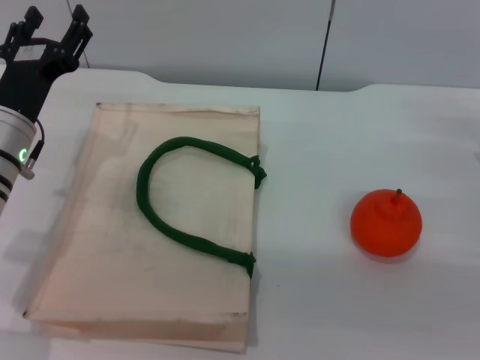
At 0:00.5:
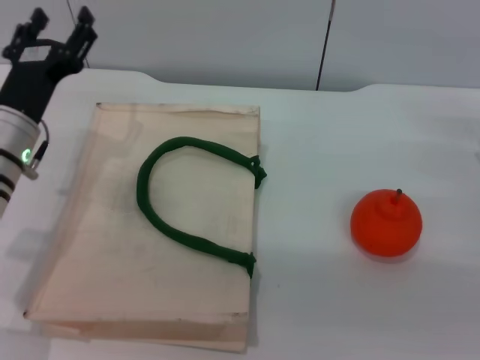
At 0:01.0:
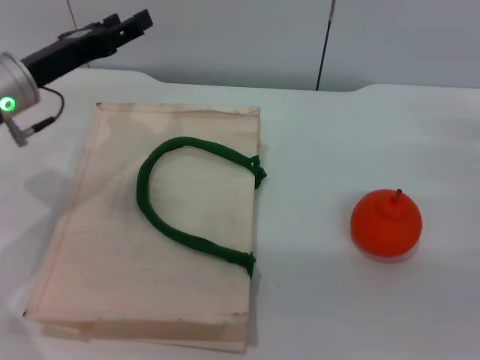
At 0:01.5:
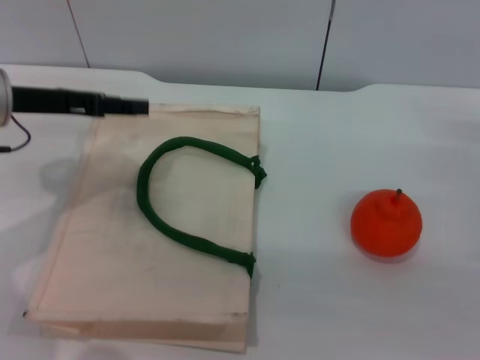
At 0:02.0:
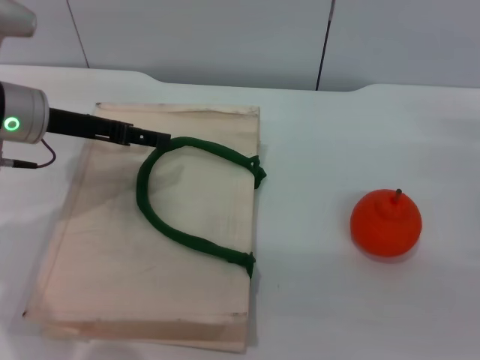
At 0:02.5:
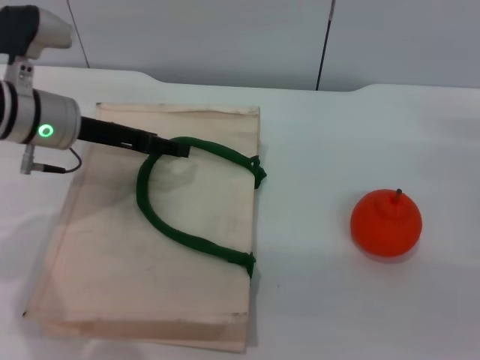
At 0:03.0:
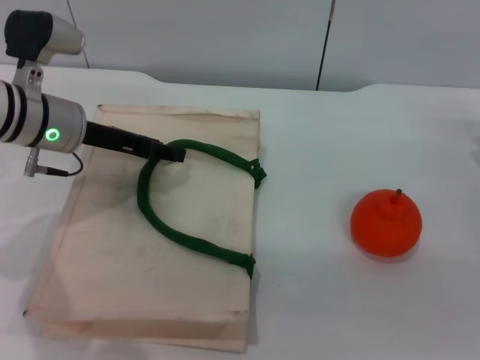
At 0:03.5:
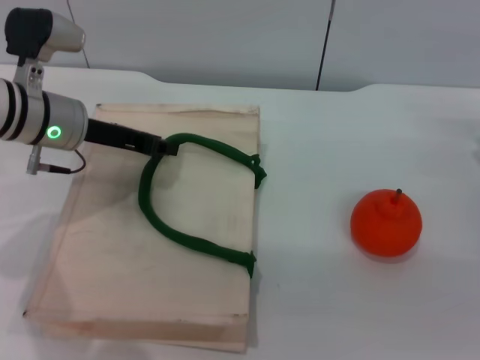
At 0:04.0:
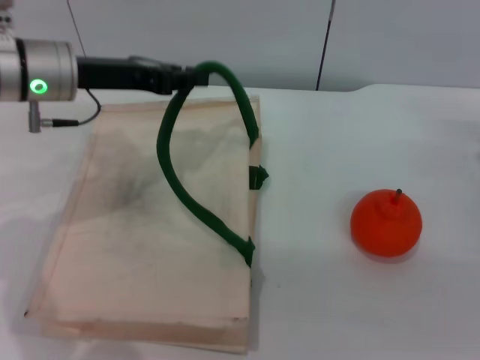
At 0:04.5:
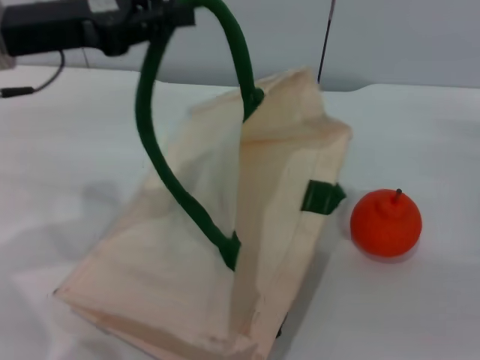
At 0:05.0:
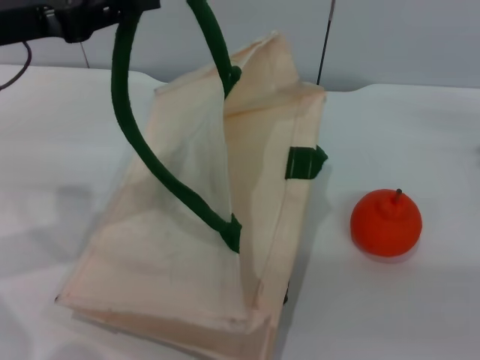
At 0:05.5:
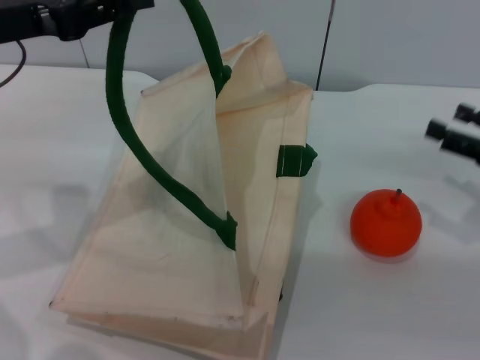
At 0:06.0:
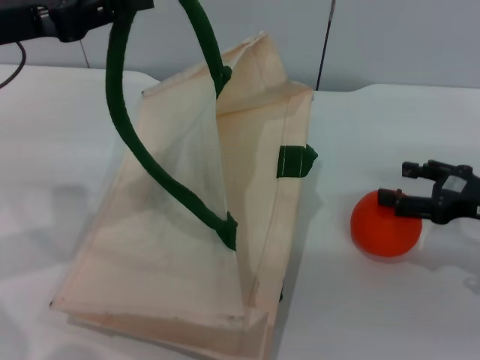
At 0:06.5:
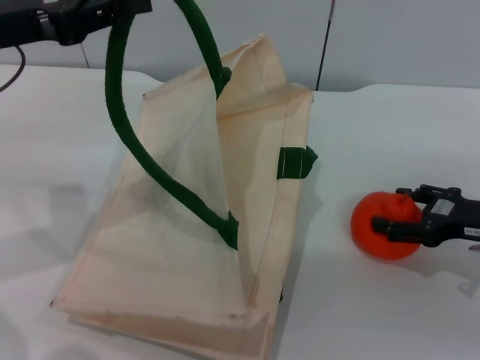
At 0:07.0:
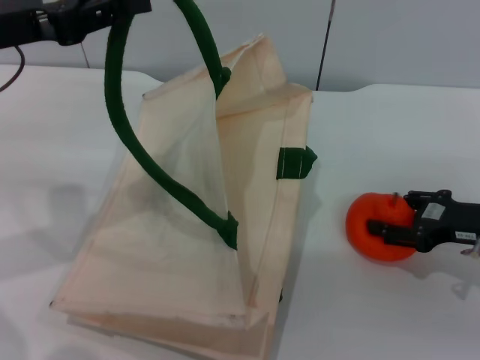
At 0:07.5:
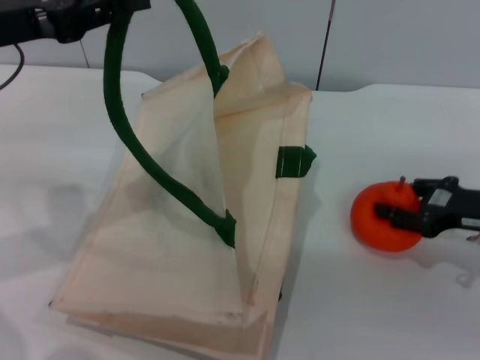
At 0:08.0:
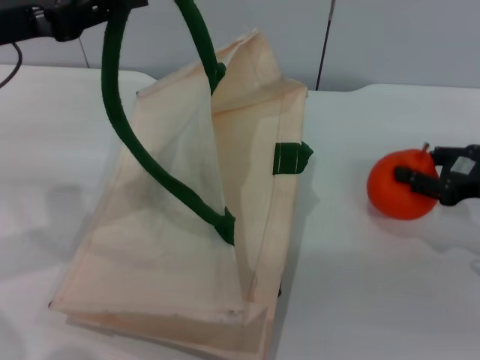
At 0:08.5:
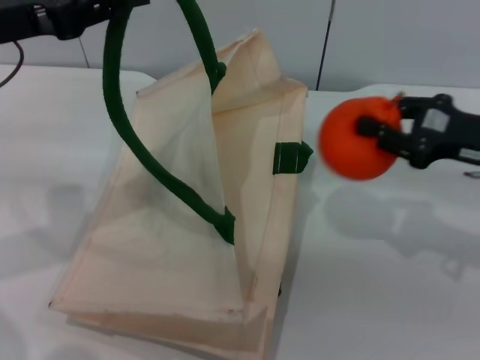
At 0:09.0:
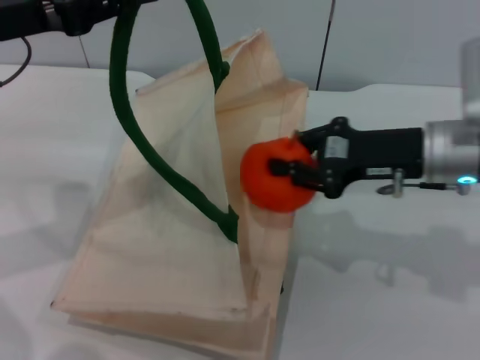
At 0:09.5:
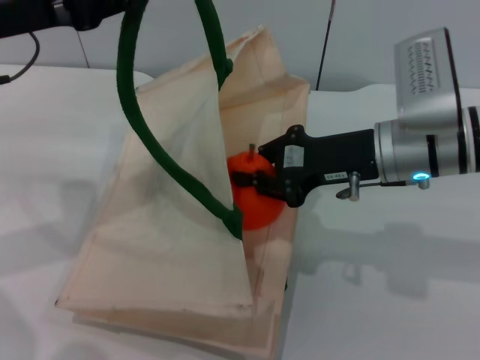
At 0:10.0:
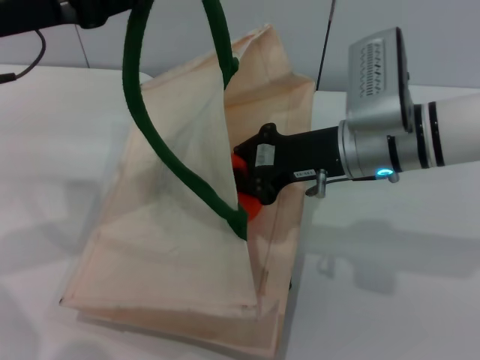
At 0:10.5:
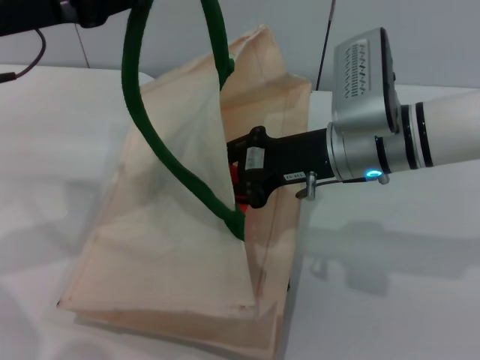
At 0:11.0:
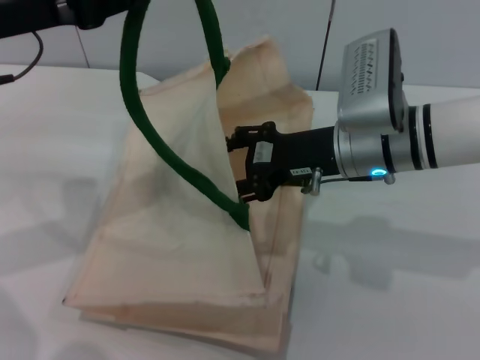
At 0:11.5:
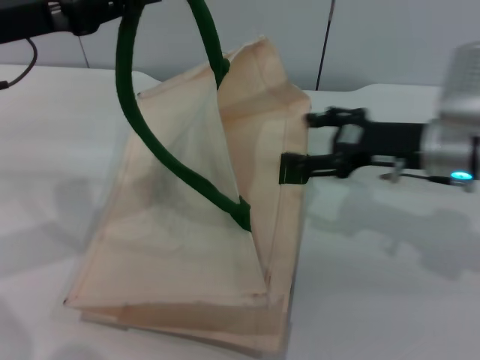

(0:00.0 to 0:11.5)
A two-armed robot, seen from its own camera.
Task of the whole recording: pick up the orange from the table and place it in the white handbag.
Step, 0:00.0 - 0:05.0: Lift the woven bag with the left gripper to open it.
Step, 0:05.5 - 0:08.0: Pick up the orange with the right gripper.
0:00.0 - 0:02.0: The left gripper is displaced upward by roughly 5 cm.
0:02.0 - 0:04.0: The left gripper closes up.
0:04.0 - 0:06.0: The left gripper travels to the left and upward by about 10 cm.
0:06.0 - 0:07.5: The right gripper closes up.
0:07.5 - 0:09.5: The right gripper goes roughly 15 cm to the left and upward, and closes its fingers.
0:09.5 - 0:11.5: The right gripper shifts approximately 5 cm to the right, and opens its fingers.

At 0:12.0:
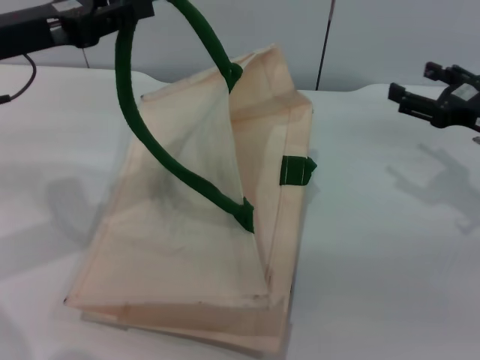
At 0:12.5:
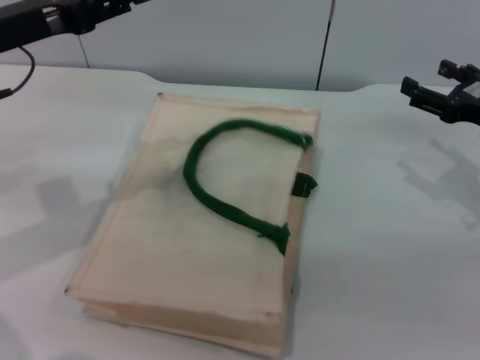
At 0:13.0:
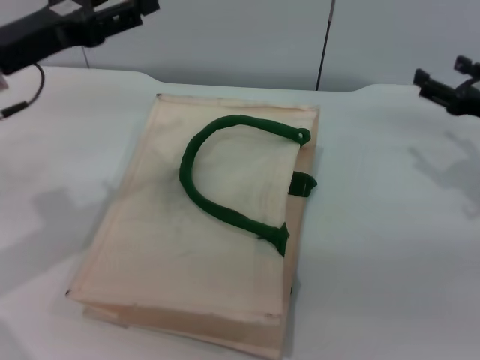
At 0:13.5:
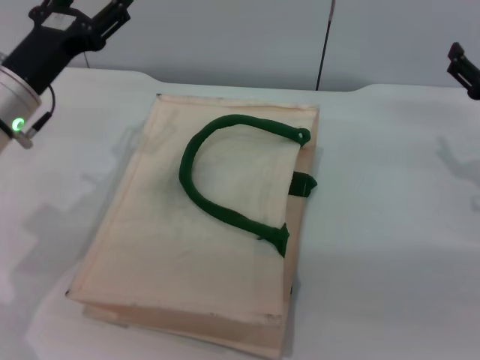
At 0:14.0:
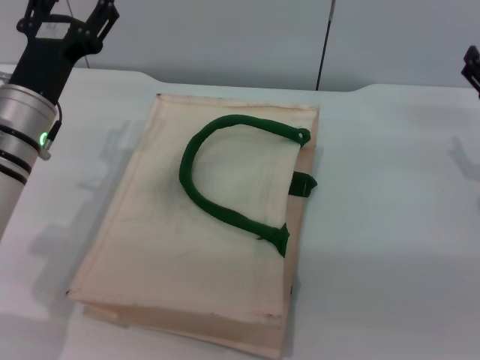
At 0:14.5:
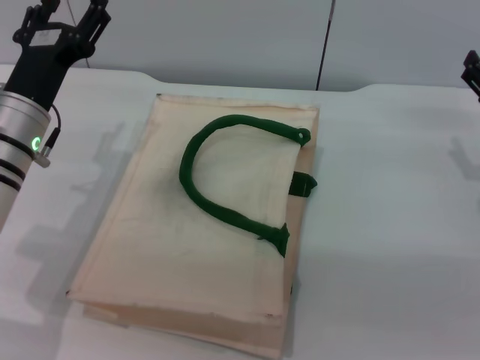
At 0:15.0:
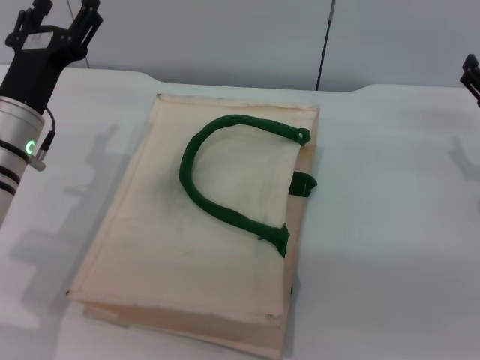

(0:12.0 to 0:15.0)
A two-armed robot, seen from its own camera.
Task of the whole recording: pick up the orange from the table and place it in the white handbag.
Step, 0:12.0 - 0:13.5: Lower the woven bag with the left gripper to close it.
0:12.0 - 0:13.5: The left gripper goes roughly 10 cm downward, and opens.
0:13.5 - 0:15.0: There are only small adjustments of the grippers.

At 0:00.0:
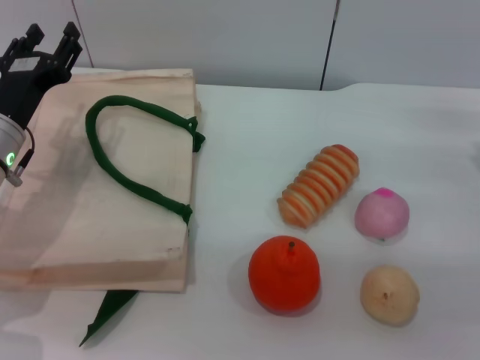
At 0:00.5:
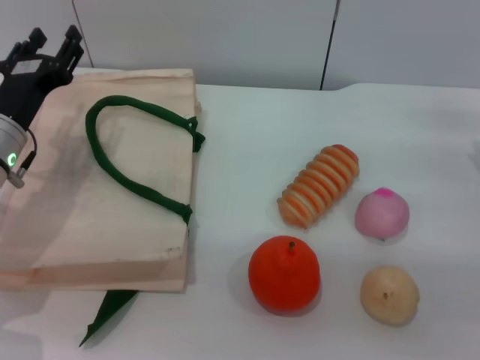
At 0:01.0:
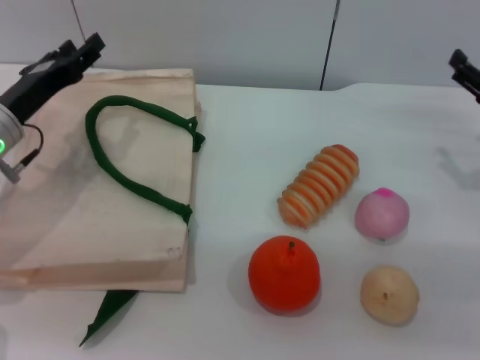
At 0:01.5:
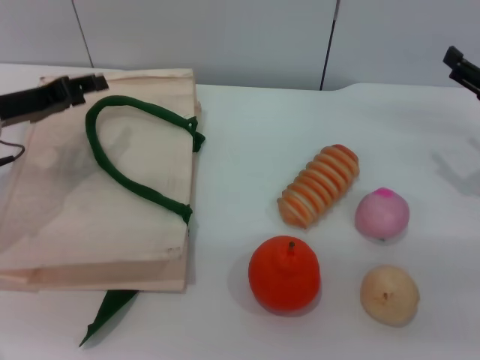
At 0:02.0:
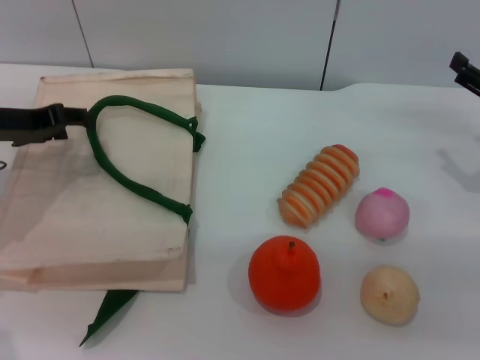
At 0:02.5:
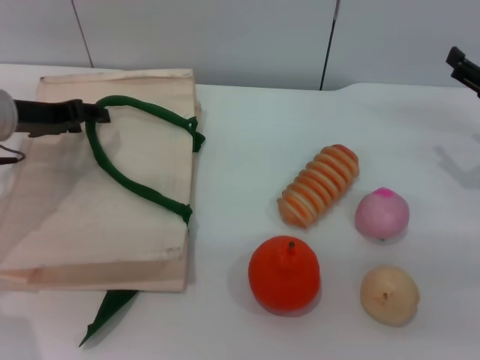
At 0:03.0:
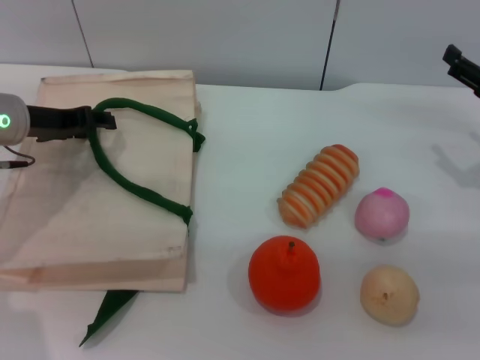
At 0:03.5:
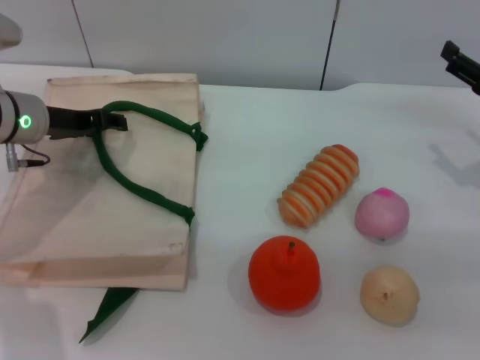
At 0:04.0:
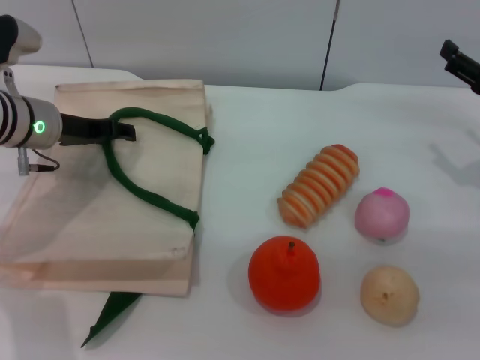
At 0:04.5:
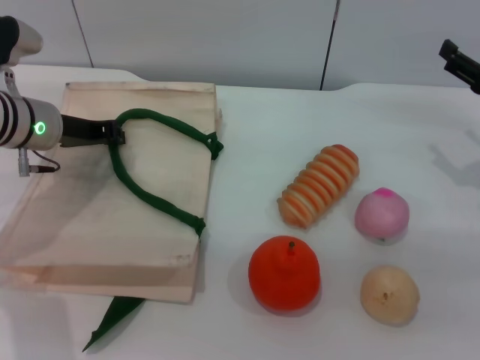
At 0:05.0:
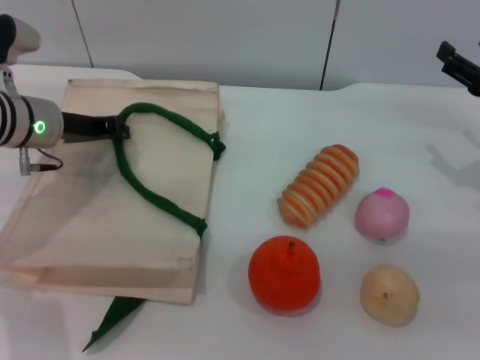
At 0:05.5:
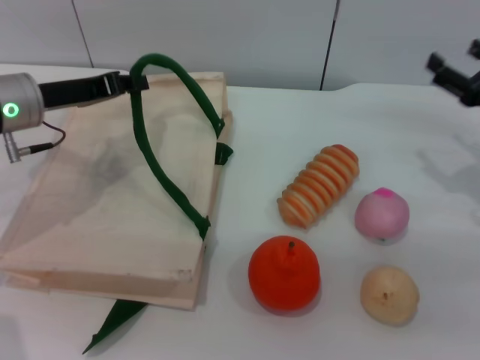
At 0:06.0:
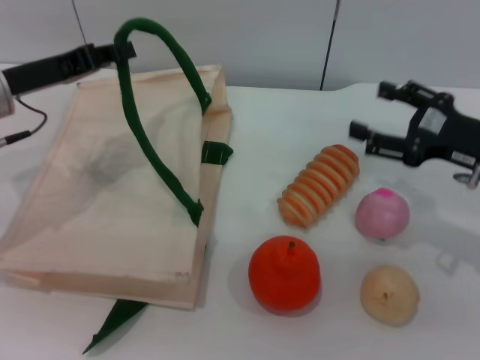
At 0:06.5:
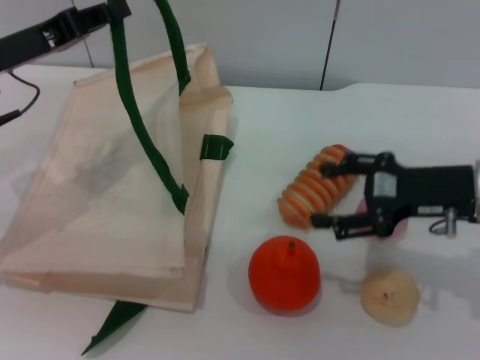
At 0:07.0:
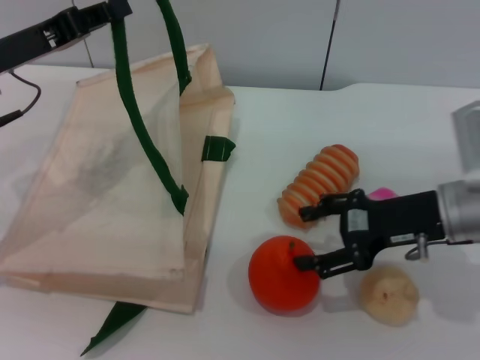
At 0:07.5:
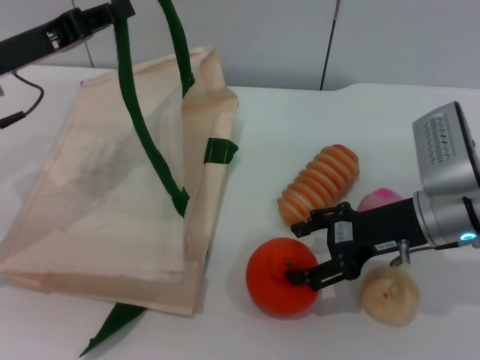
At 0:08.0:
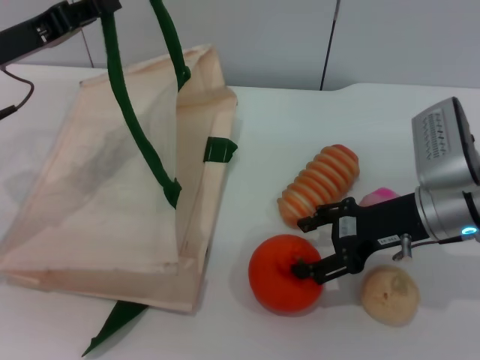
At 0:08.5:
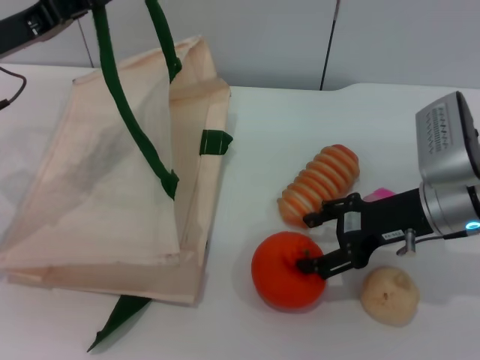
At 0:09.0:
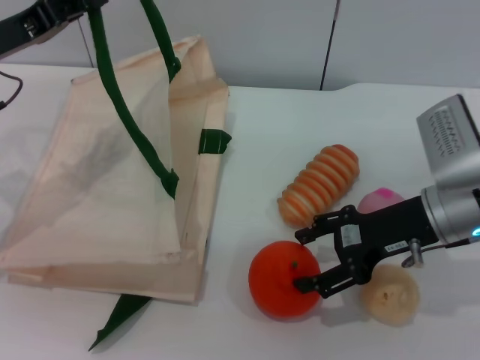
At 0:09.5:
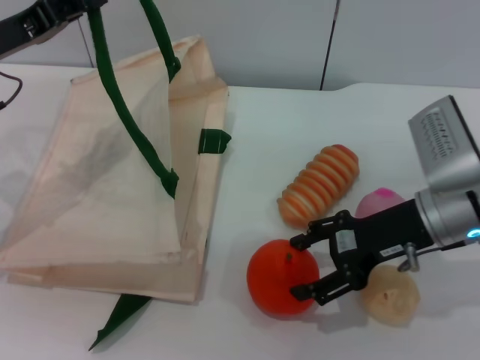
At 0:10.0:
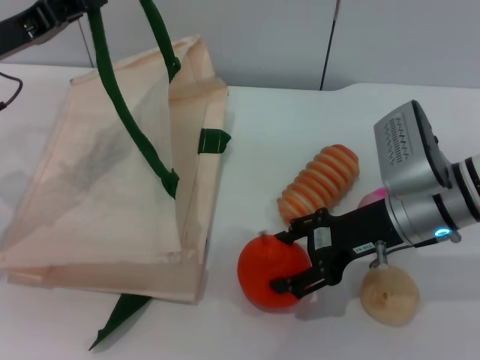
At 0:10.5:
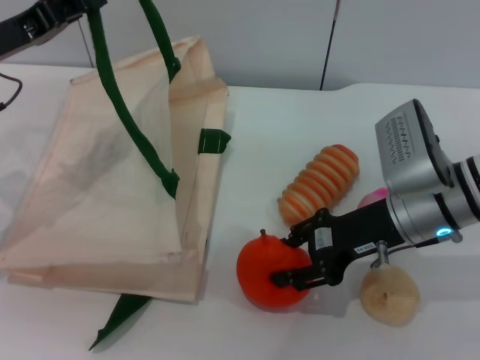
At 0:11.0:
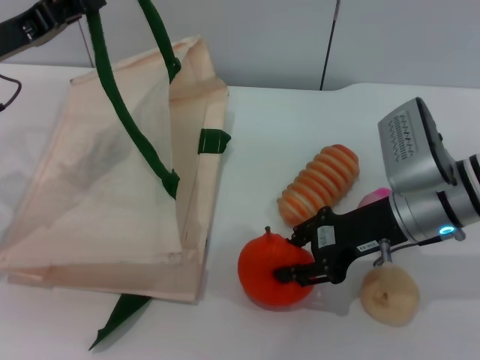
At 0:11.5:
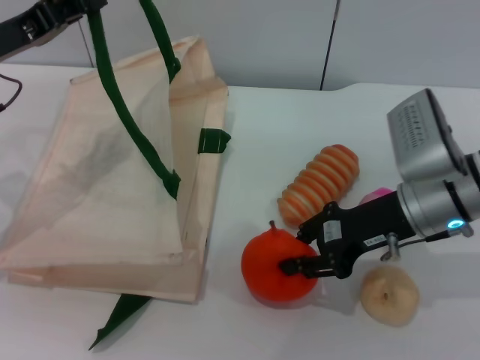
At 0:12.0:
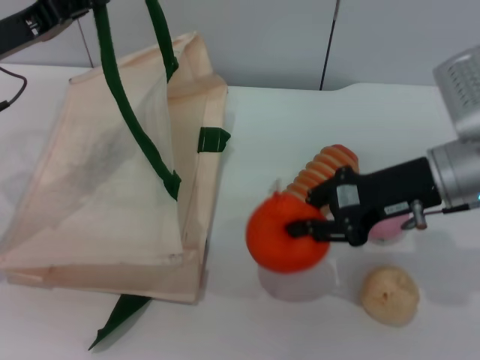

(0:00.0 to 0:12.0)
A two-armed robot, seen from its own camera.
Task of the whole recording: pick up the orange and peach from the table and place it in the white handbag.
Step, 0:00.0 - 0:05.0: Lift the woven bag with the left gripper to open it.
0:00.0 - 0:02.0: The left gripper travels upward by roughly 5 cm.
0:02.0 - 0:04.0: The left gripper is displaced to the right by roughly 5 cm.
0:04.0 - 0:06.0: The right gripper moves about 5 cm; the left gripper ends up roughly 5 cm from where it was, and closes.
0:06.0 - 0:08.0: The right gripper heads to the left, covering approximately 5 cm.
0:08.0 - 0:10.0: The grippers move only a little.
0:10.0 - 0:12.0: The right gripper moves about 5 cm, and closes its fingers.
